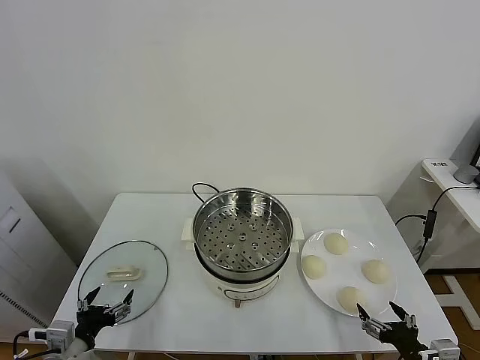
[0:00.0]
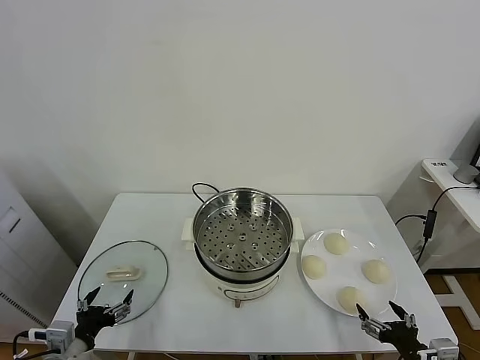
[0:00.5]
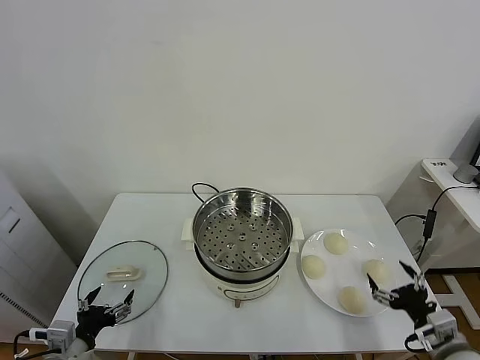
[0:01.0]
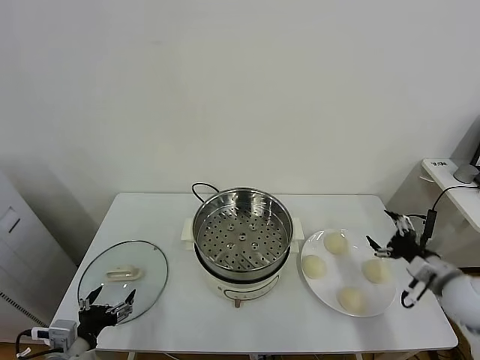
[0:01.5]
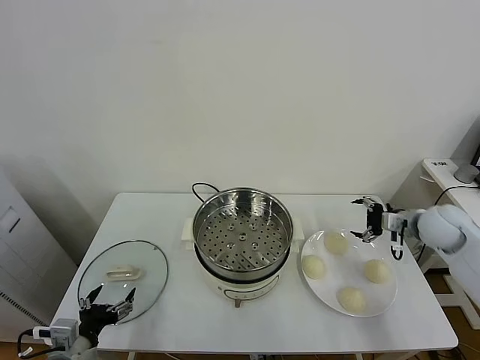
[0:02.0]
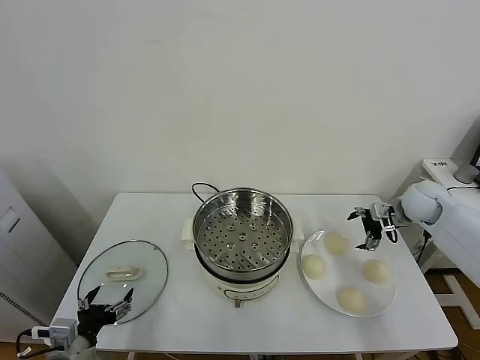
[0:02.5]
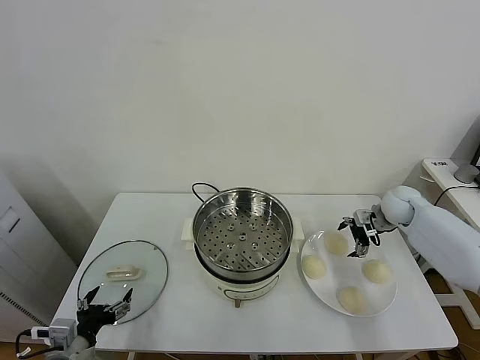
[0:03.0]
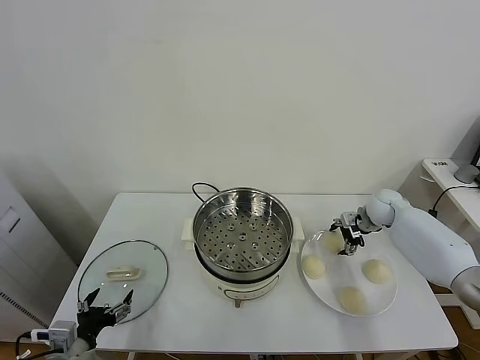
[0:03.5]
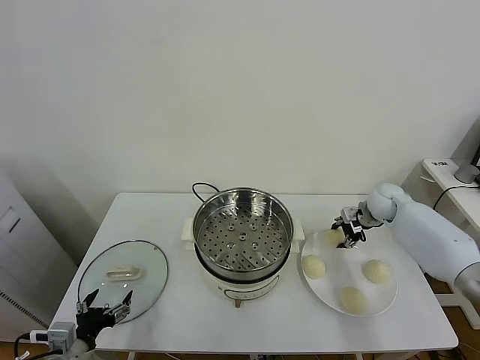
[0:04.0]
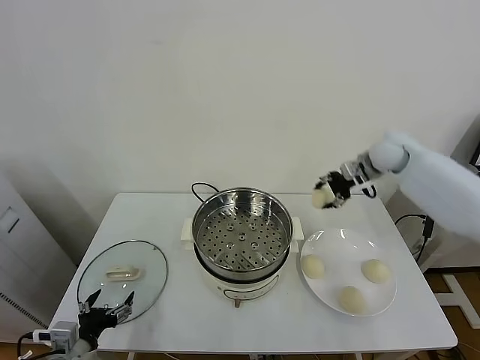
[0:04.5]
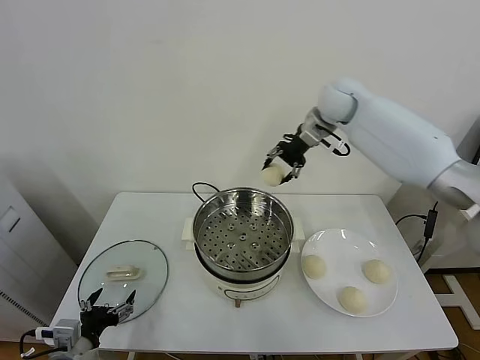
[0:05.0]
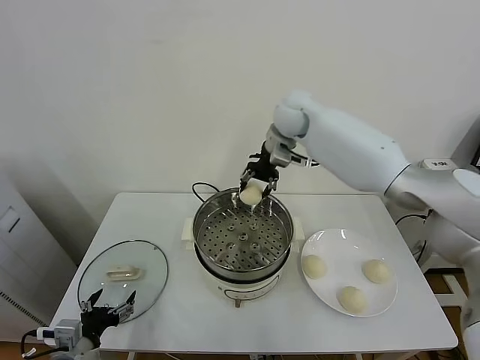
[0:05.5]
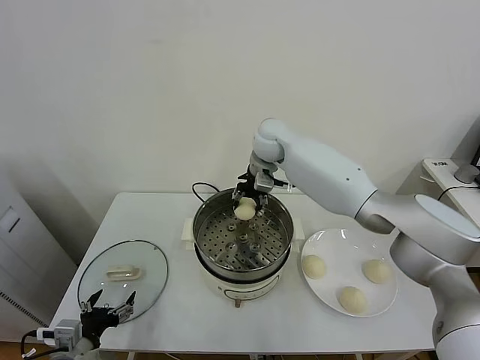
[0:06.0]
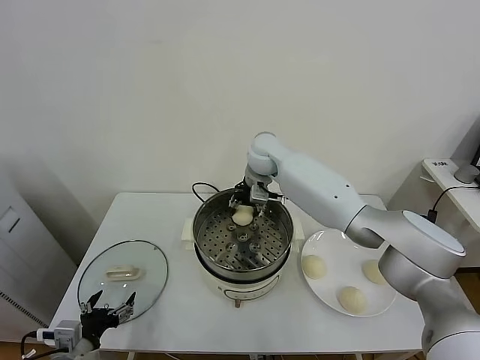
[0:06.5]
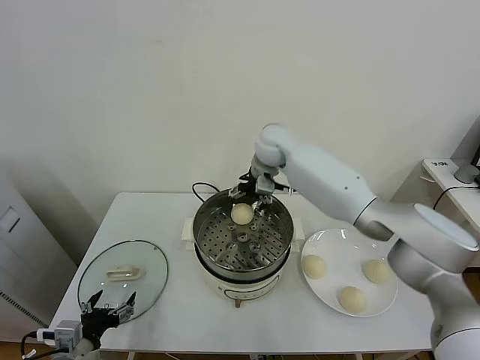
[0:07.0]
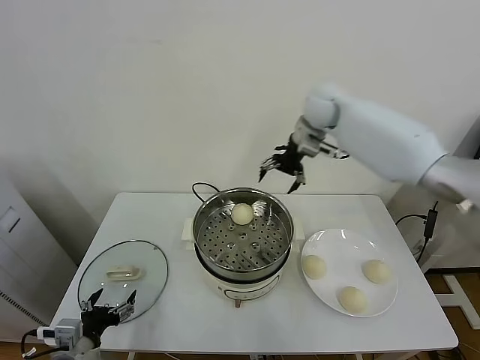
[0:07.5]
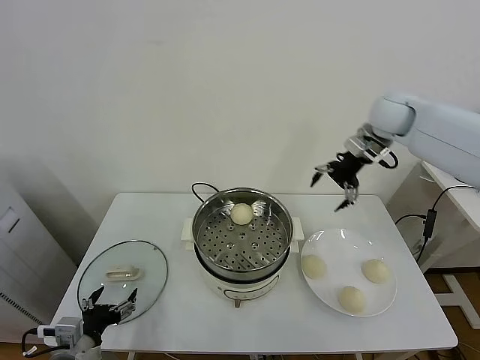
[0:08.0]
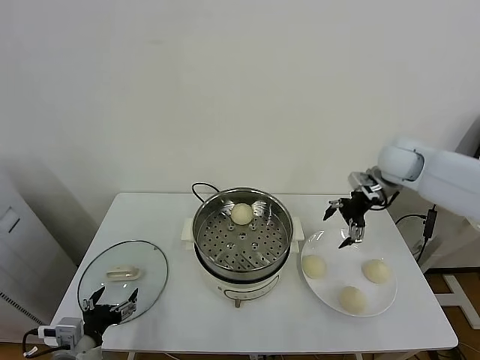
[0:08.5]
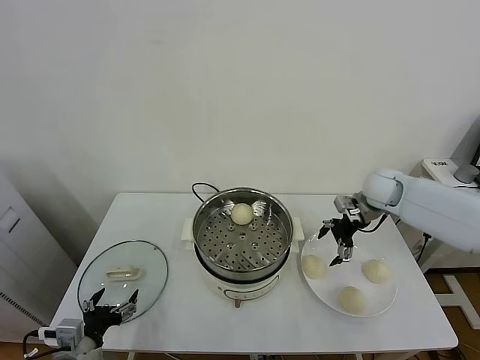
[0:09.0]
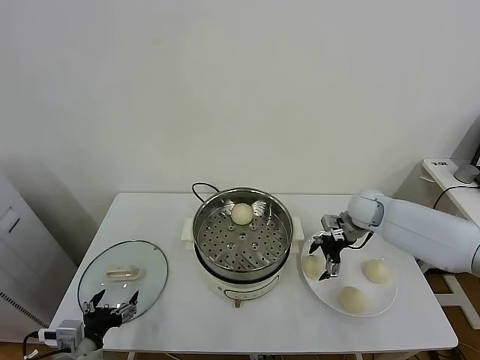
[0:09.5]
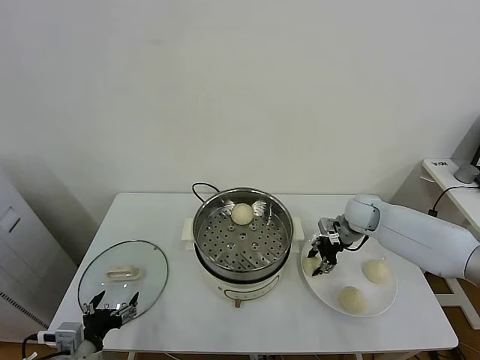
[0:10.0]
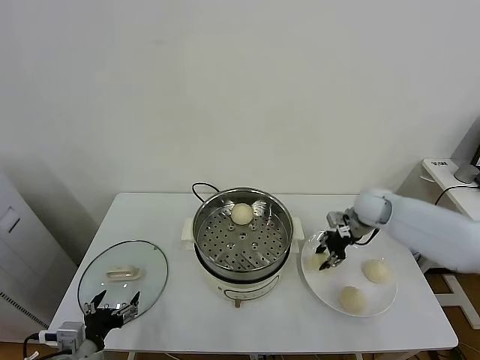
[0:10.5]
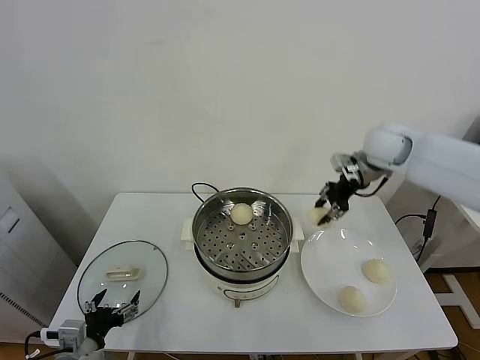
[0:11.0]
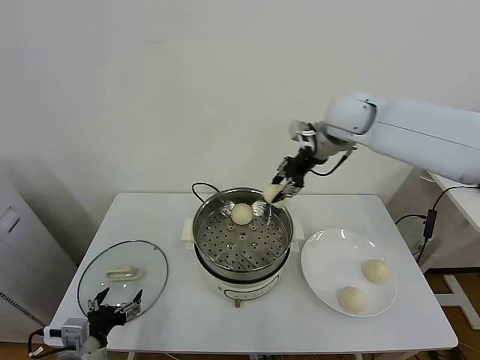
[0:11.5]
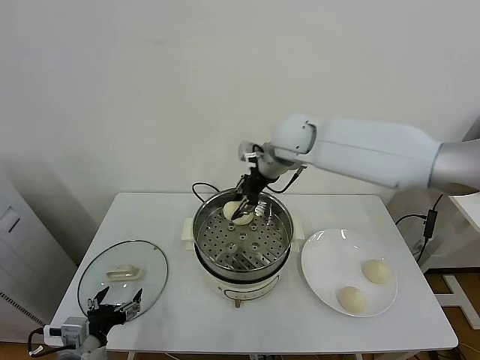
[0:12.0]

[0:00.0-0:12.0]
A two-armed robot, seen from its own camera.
Task of the whole recording: take steamed baozi put them in steamer.
Step, 0.0 to 3.5 s: Grasp the baozi in the plate with right gripper.
Step, 4.0 to 6.5 s: Place the baozi on the steamer with right gripper.
Step, 7.0 to 9.5 s: Grasp the baozi in the plate with right gripper.
2.0 to 4.0 s: The right gripper travels forward by roughly 10 cm, and closes up.
4.0 to 6.0 s: The right gripper goes about 35 cm to the left and upward.
6.0 to 8.0 s: The right gripper travels to the right by roughly 25 cm, and opens up.
8.0 to 10.0 s: The right gripper heads downward, covering roughly 25 cm, and closes.
10.0 to 12.0 s: The right gripper moves to the left and upward, approximately 30 cm.

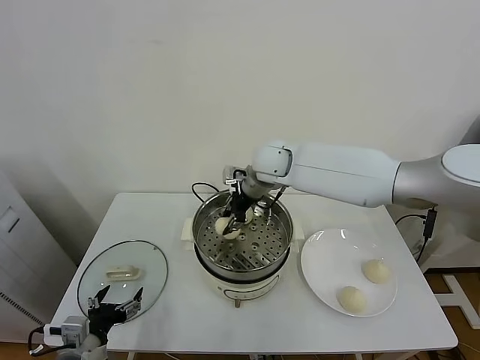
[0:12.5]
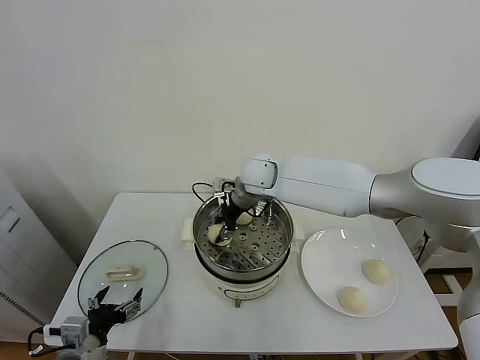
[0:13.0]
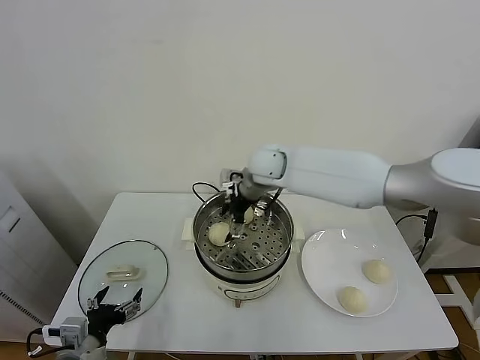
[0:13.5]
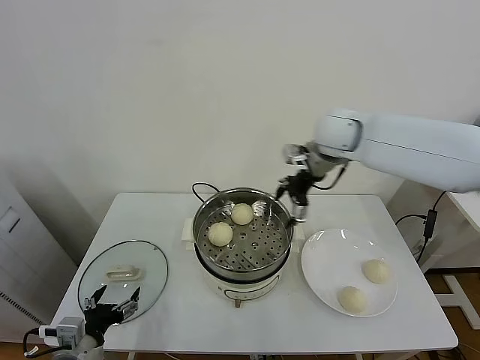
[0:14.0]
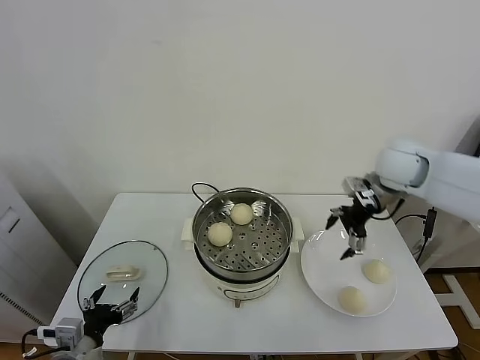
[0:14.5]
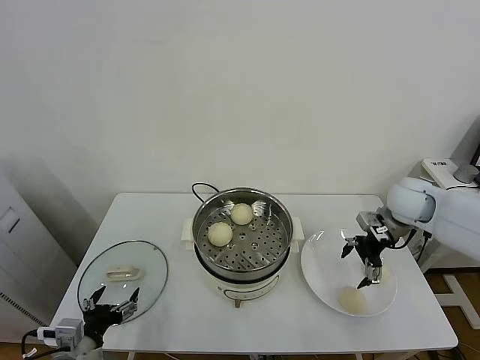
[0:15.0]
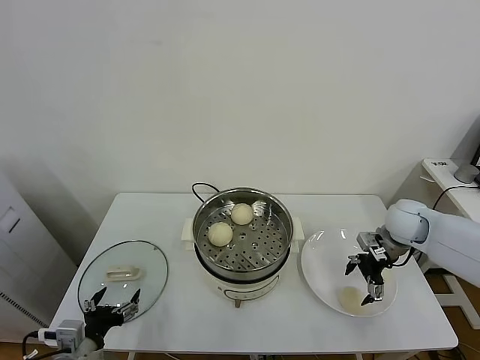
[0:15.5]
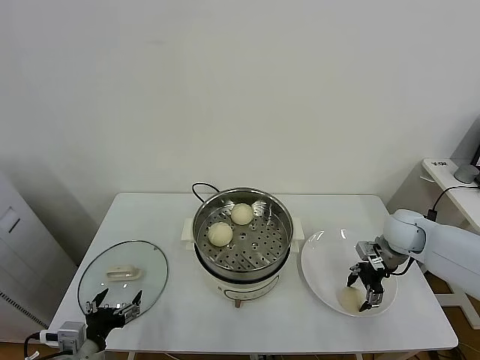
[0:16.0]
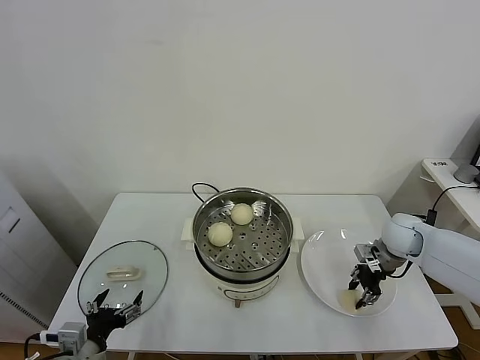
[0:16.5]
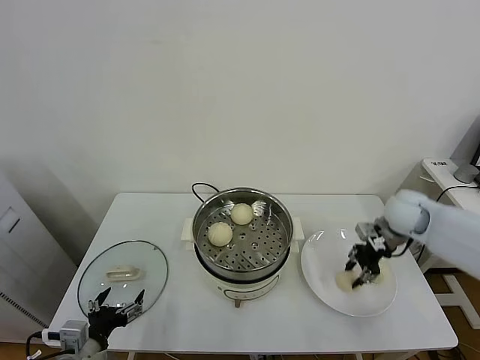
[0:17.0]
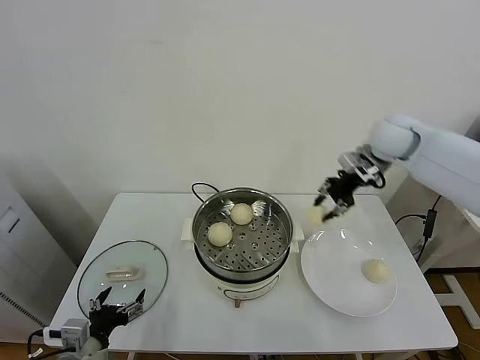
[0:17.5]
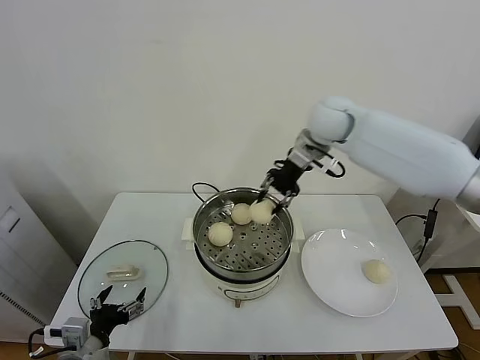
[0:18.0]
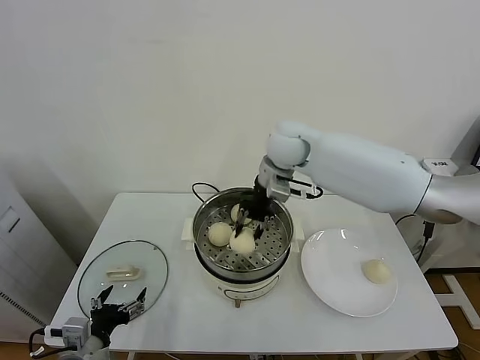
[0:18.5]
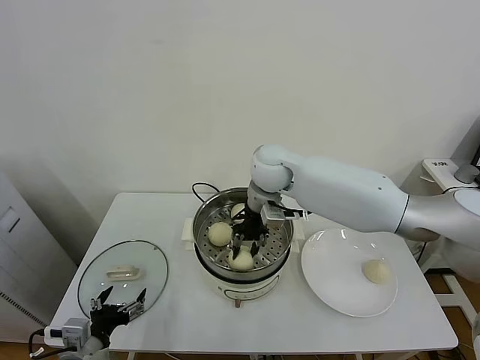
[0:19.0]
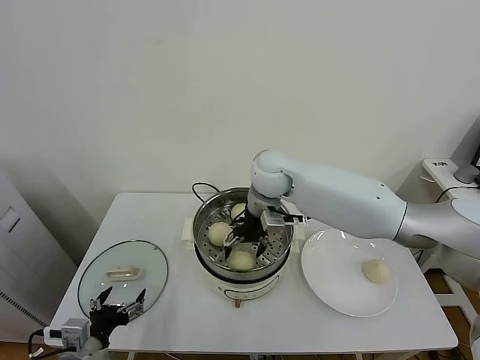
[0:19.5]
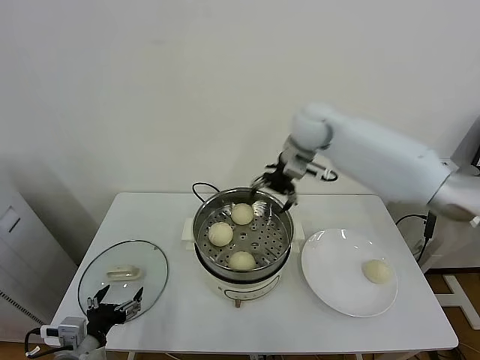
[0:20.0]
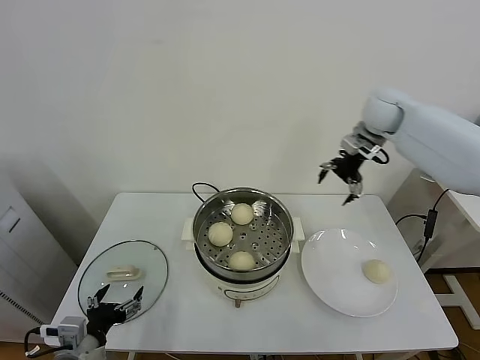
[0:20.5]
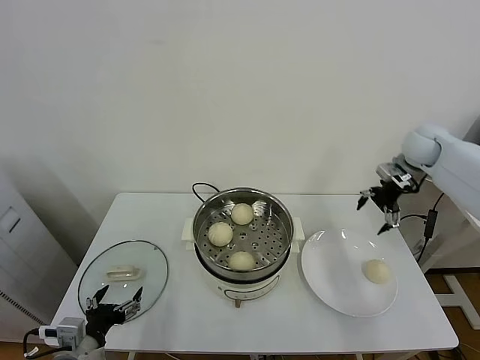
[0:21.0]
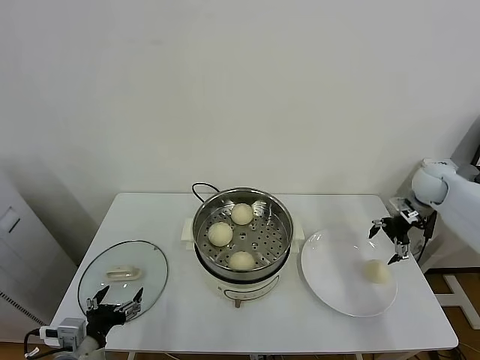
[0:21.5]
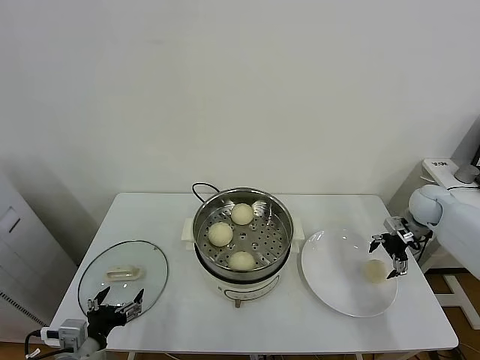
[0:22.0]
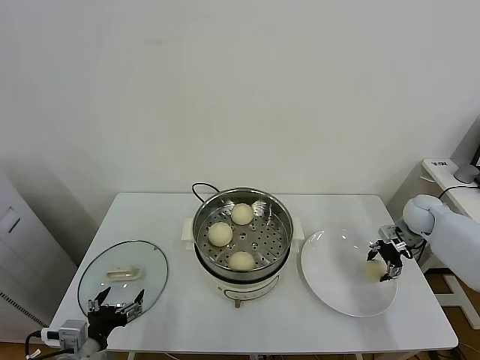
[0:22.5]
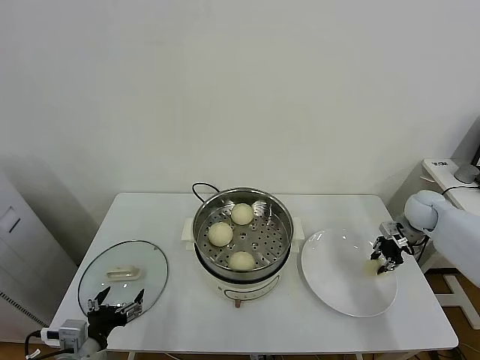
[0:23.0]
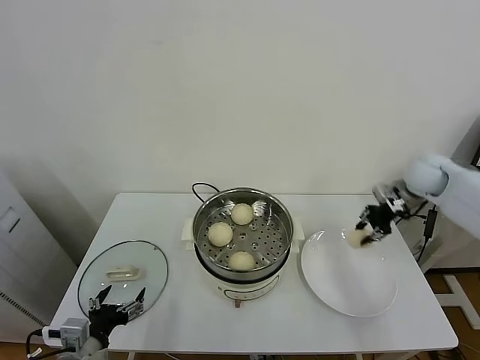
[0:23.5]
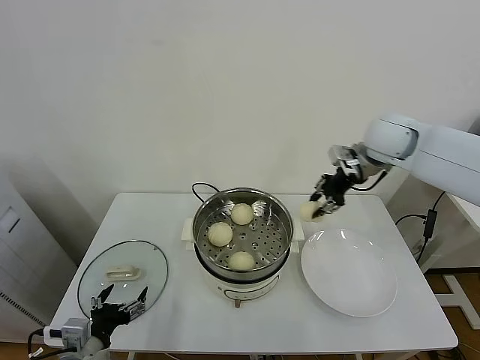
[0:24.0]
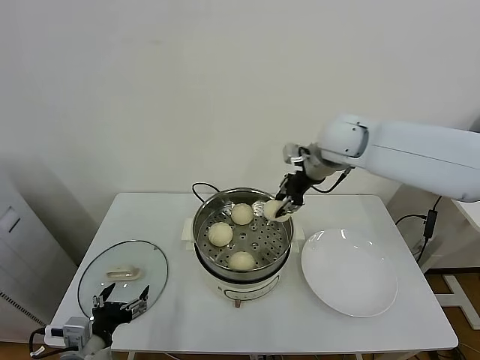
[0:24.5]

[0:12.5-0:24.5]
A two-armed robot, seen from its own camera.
Task of the whole recording: take steamed baozi put them in steamer.
Step, 14.0 to 16.0 s: Grasp the baozi in the plate with right gripper.
Step, 17.0 to 19.5 s: Place the baozi on the steamer with right gripper.
Step, 20.0 to 22.5 s: Grasp the baozi in the plate with right gripper.
12.5 to 14.5 s: The right gripper goes some 25 cm to the right, and opens.
14.5 to 16.5 s: The right gripper moves downward, some 15 cm, and closes up.
16.5 to 18.5 s: The right gripper goes some 35 cm to the left and upward.
18.5 to 20.5 s: The right gripper travels to the right by about 25 cm, and opens up.
20.5 to 22.5 s: The right gripper heads downward and to the right, covering about 30 cm.
22.5 to 24.5 s: The right gripper travels to the left and upward by roughly 35 cm, and closes its fingers.

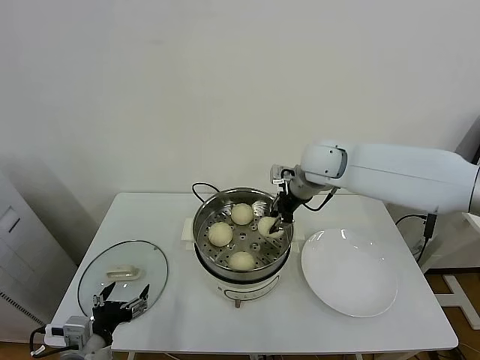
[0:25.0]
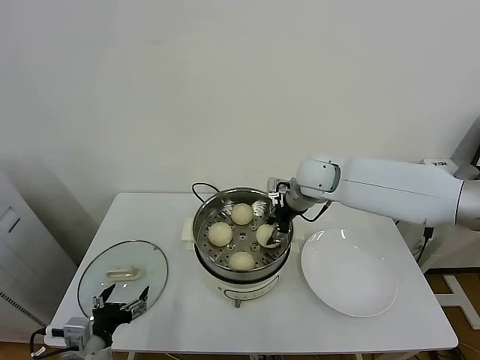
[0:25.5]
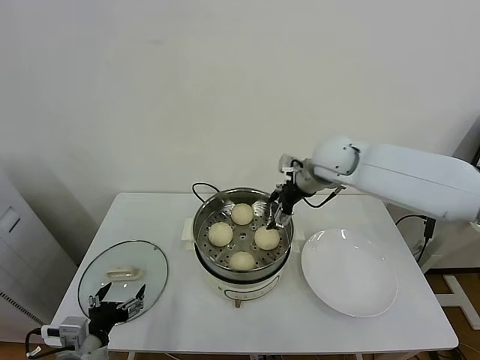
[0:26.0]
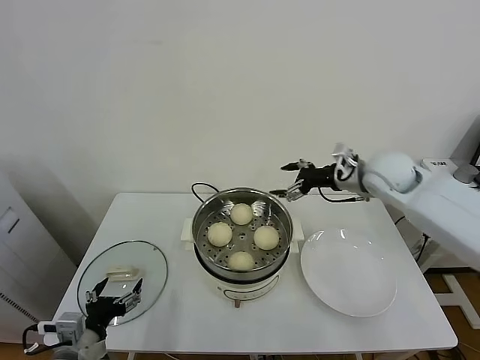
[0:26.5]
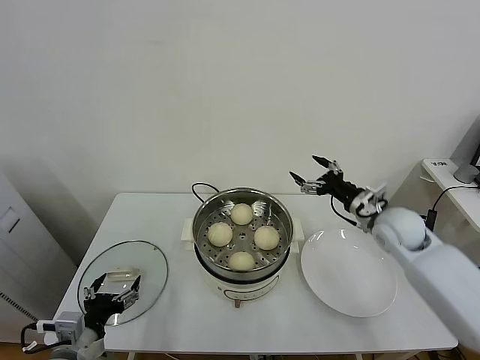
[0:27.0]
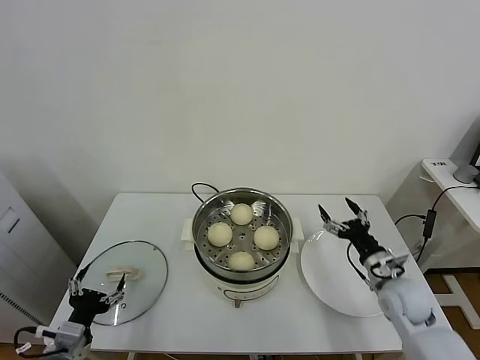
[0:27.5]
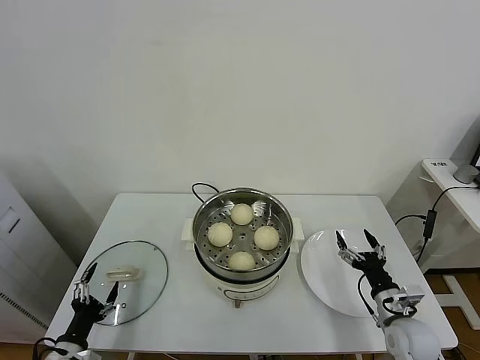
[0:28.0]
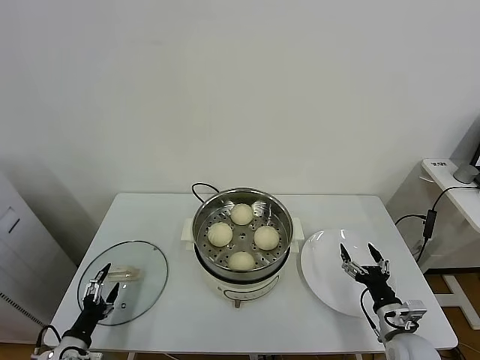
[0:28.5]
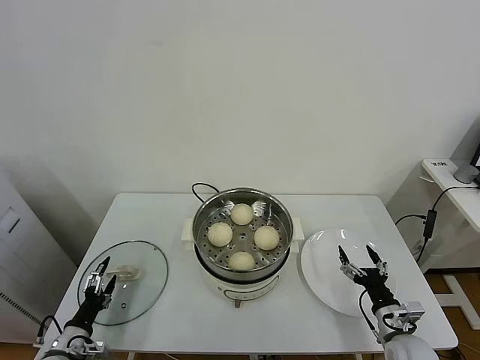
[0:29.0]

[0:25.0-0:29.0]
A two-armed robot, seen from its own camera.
Task of the whole recording: take steamed baozi put them in steamer.
25.0 to 27.0 s: The right gripper travels to the right, downward and backward by about 20 cm, and opens up.
27.0 to 29.0 s: The left gripper moves downward and to the left, some 15 cm. The right gripper moves downward and backward, about 30 cm.
